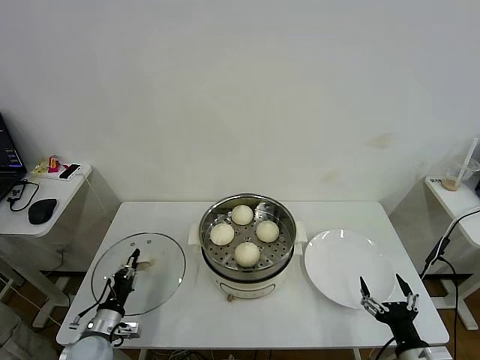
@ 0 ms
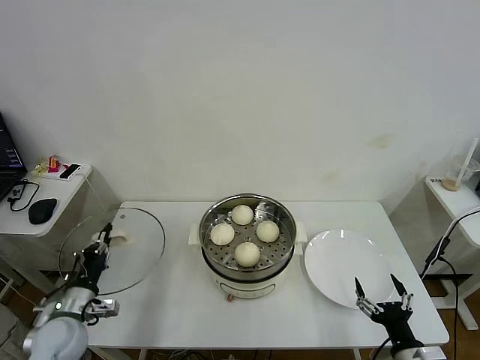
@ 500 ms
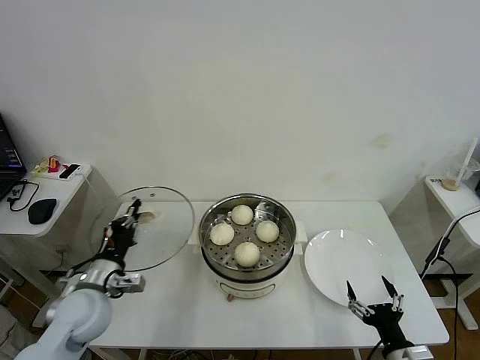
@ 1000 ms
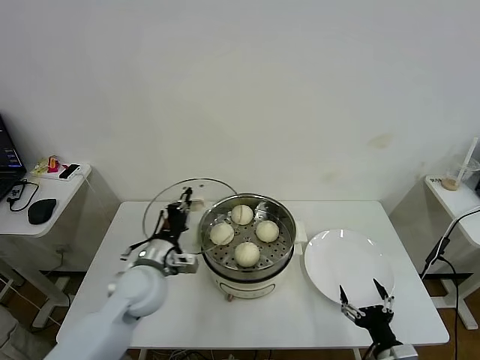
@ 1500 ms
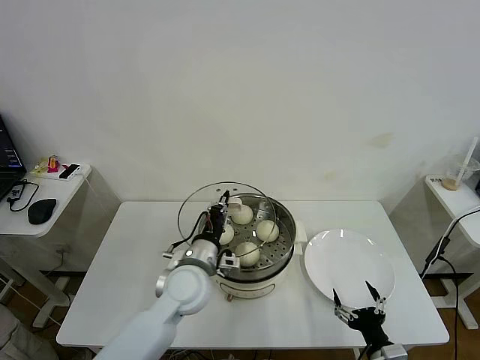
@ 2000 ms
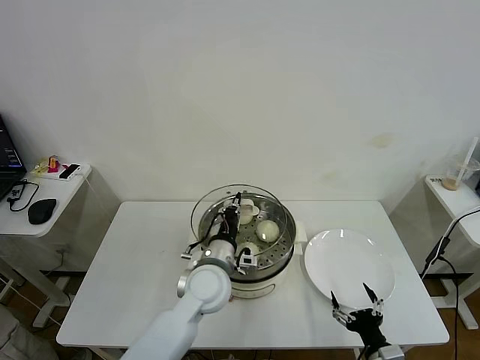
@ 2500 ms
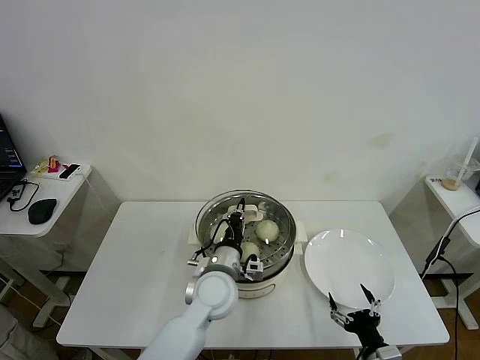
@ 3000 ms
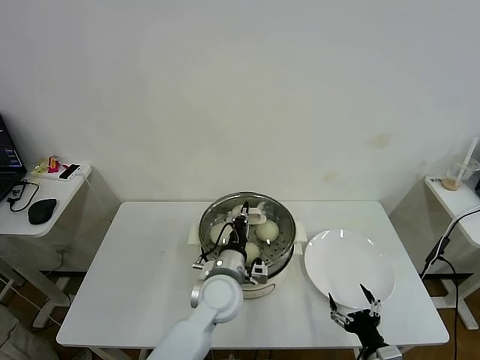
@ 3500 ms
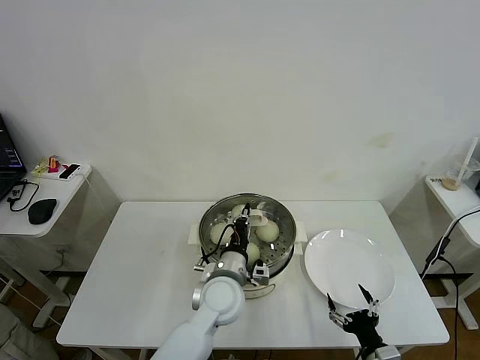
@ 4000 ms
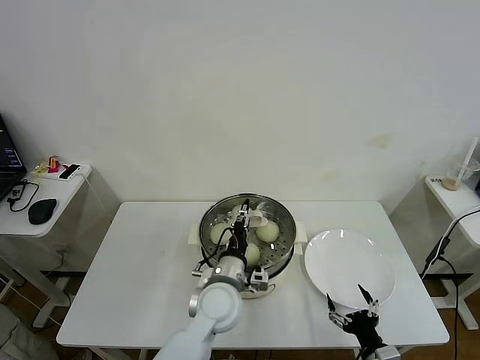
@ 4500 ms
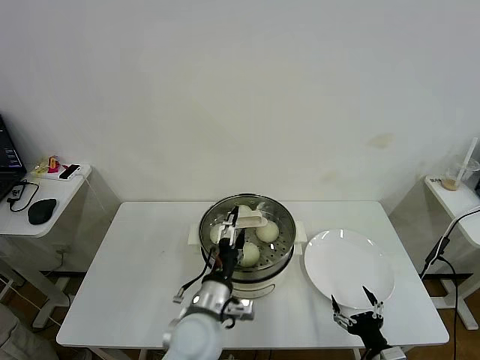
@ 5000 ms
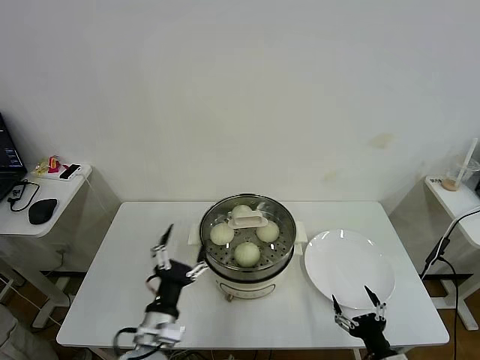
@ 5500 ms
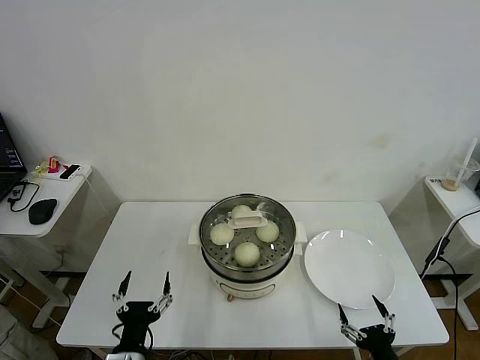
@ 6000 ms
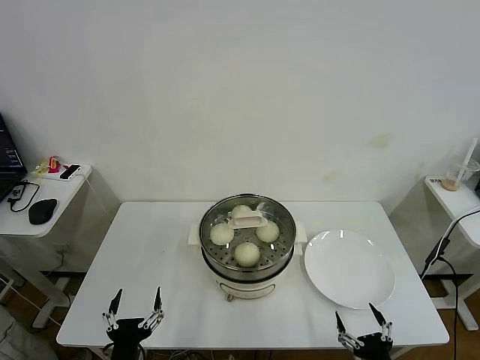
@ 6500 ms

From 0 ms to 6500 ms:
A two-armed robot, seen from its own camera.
Task of the whole recording: take steamed baozi put them in steamer then cover it.
Step, from 0 ms to 4500 ms: Place the pot lid on the steamer with left gripper.
From 0 ms to 2000 ms: The left gripper is displaced to the right and upward by some 30 cm; the right gripper moves approximately 5 cm.
From 2000 ms to 4500 ms: The left gripper is displaced to the right by some 5 cm, and opens.
From 4500 ms to 6500 ms: The left gripper moves backward and to the left, approximately 30 cm, and opens its fingers, while the right gripper heads backward, covering approximately 5 cm.
